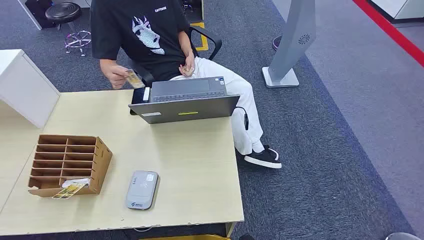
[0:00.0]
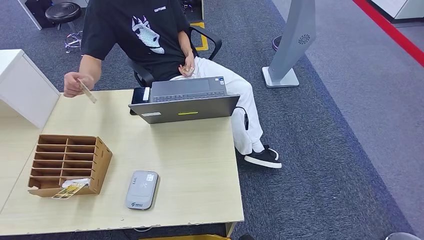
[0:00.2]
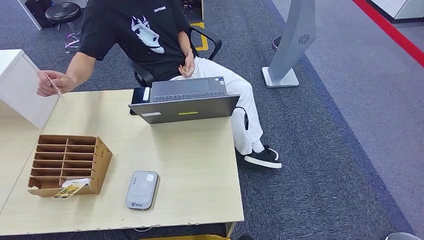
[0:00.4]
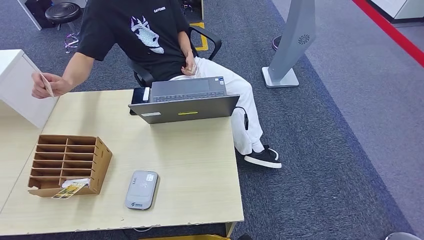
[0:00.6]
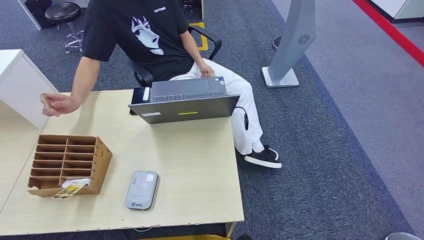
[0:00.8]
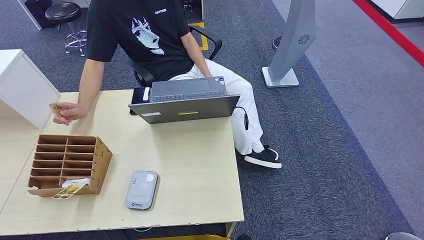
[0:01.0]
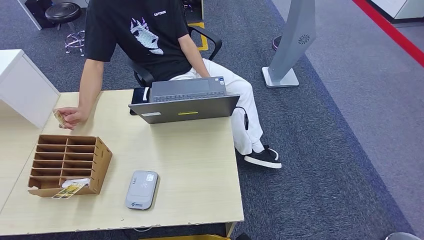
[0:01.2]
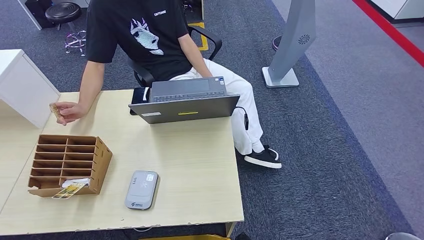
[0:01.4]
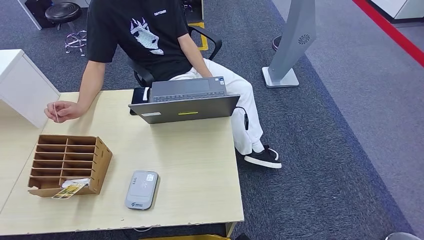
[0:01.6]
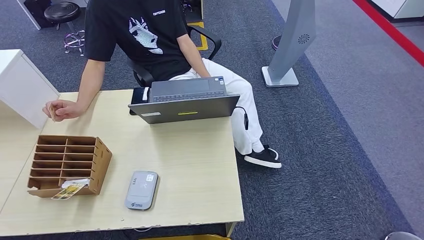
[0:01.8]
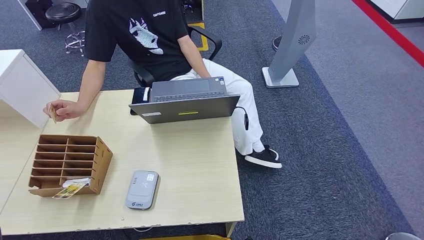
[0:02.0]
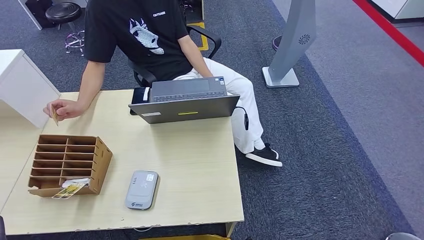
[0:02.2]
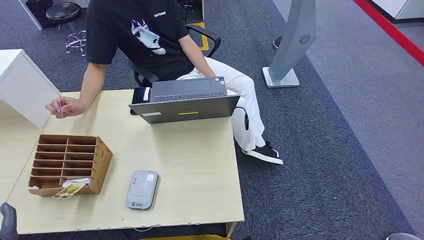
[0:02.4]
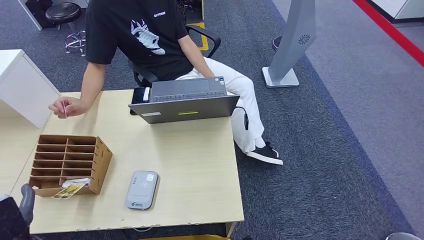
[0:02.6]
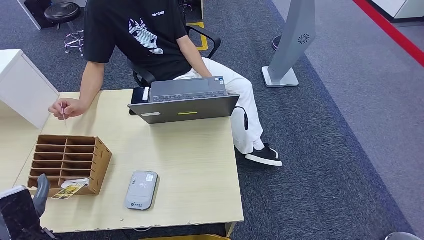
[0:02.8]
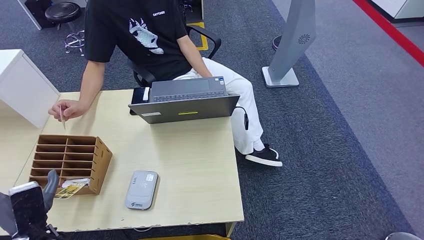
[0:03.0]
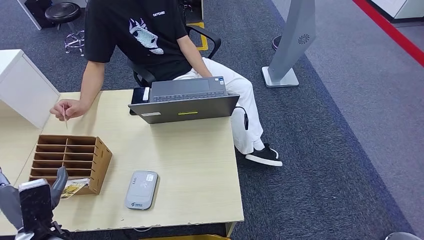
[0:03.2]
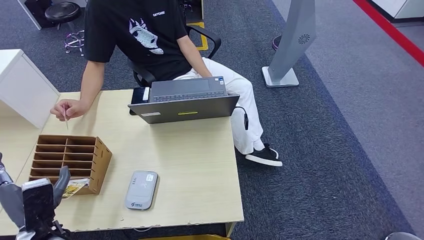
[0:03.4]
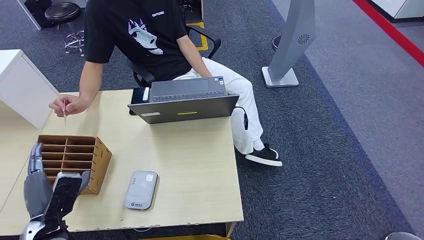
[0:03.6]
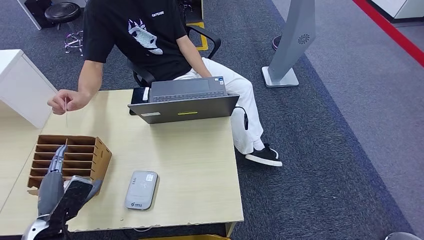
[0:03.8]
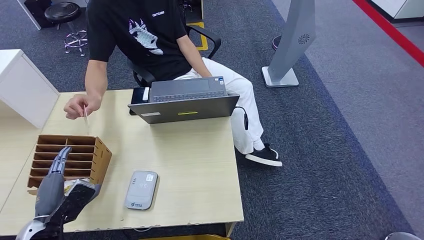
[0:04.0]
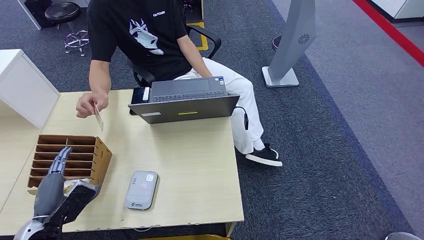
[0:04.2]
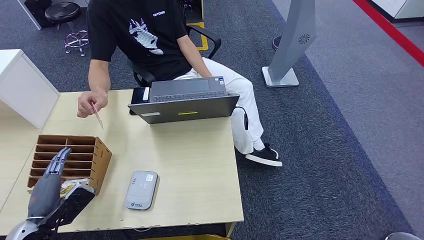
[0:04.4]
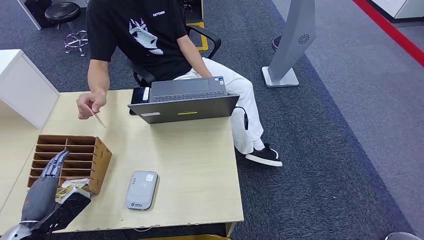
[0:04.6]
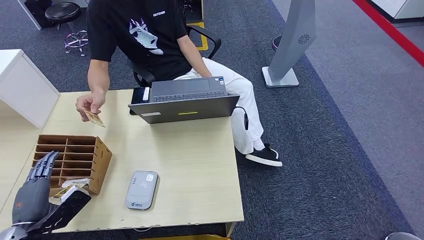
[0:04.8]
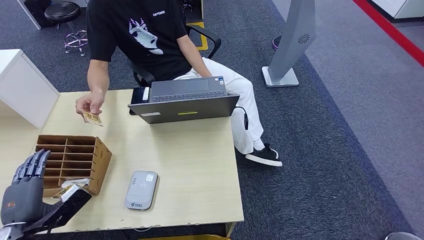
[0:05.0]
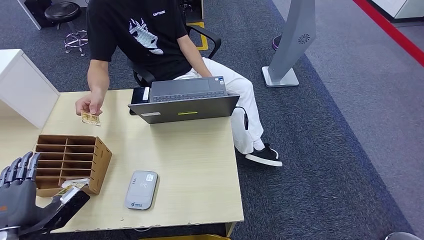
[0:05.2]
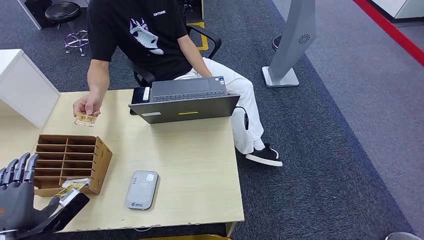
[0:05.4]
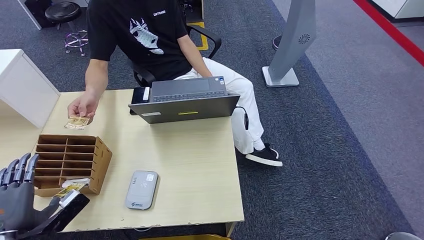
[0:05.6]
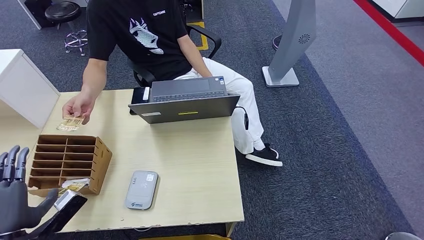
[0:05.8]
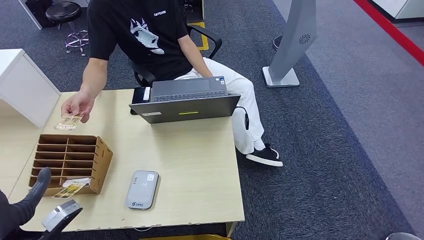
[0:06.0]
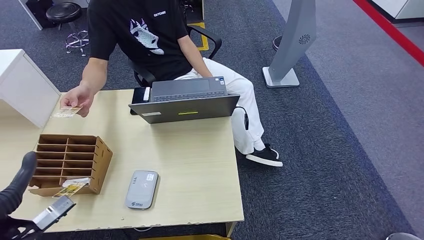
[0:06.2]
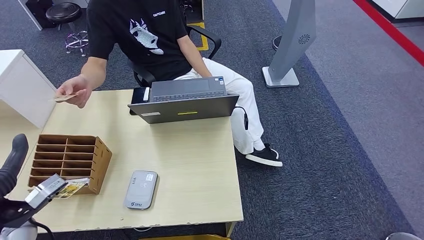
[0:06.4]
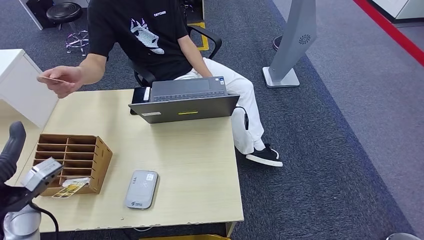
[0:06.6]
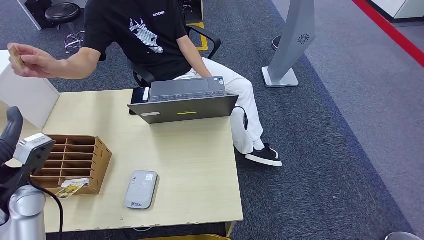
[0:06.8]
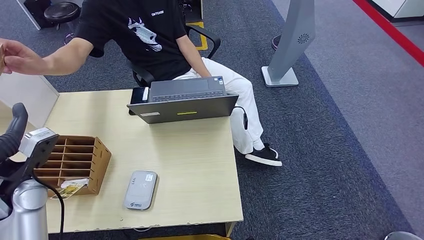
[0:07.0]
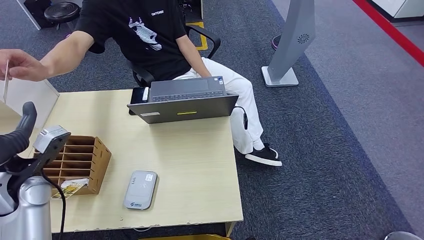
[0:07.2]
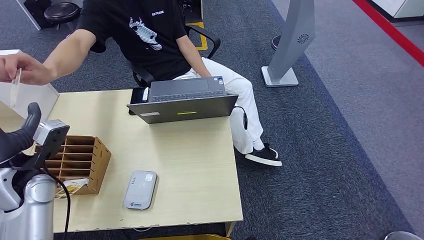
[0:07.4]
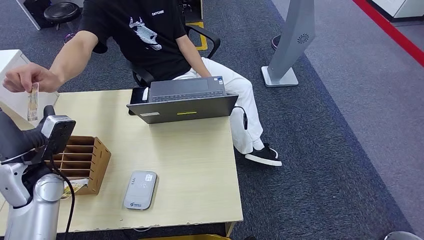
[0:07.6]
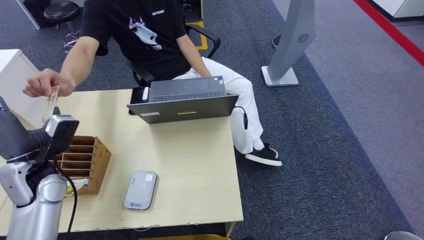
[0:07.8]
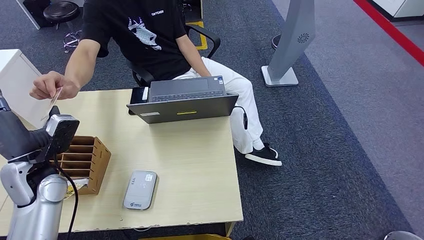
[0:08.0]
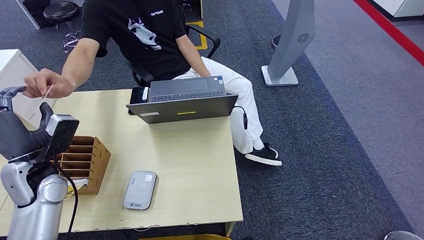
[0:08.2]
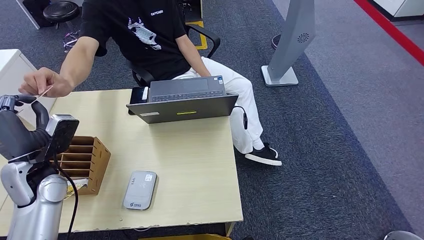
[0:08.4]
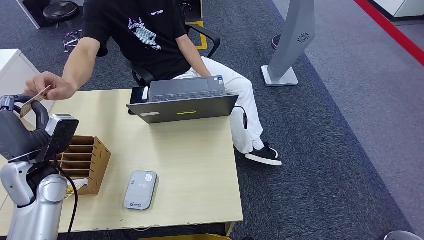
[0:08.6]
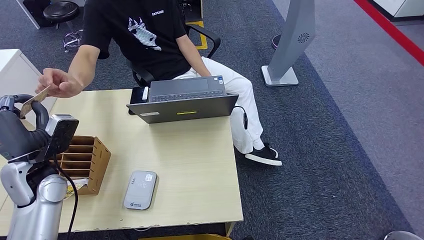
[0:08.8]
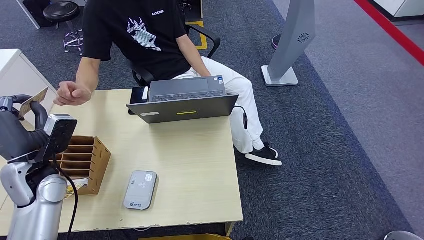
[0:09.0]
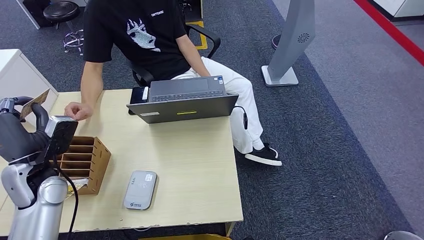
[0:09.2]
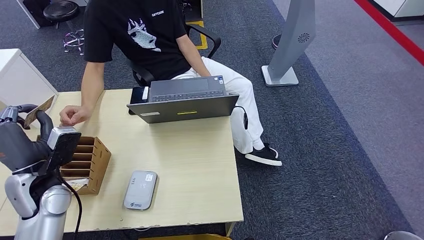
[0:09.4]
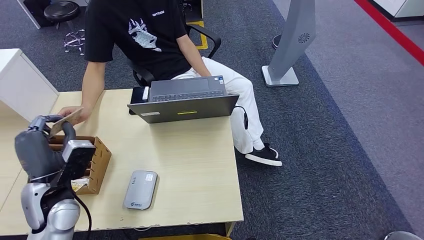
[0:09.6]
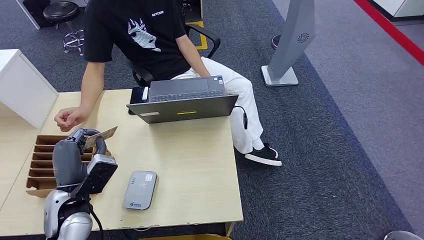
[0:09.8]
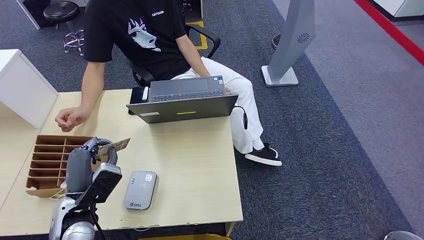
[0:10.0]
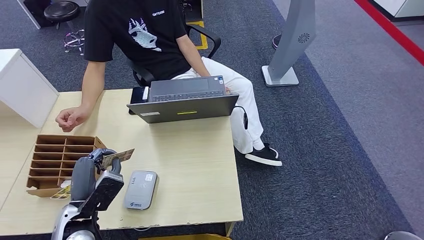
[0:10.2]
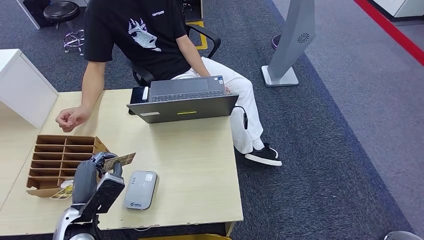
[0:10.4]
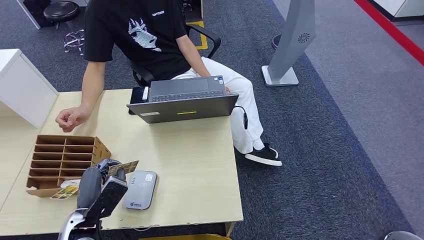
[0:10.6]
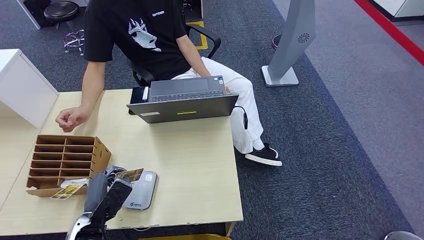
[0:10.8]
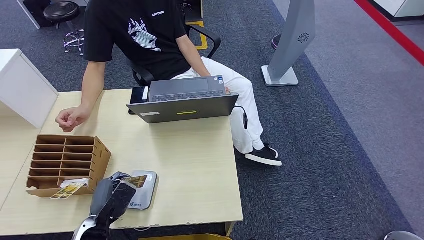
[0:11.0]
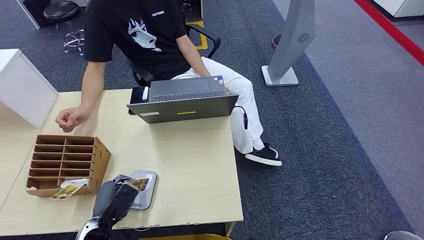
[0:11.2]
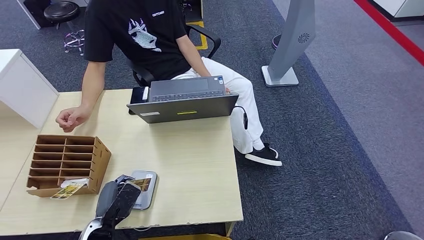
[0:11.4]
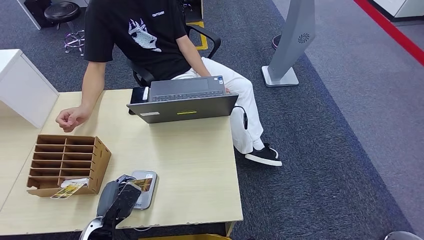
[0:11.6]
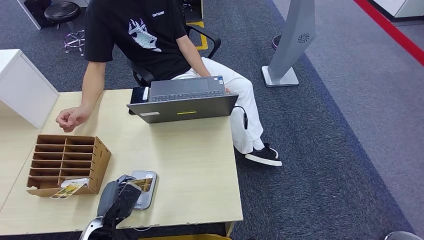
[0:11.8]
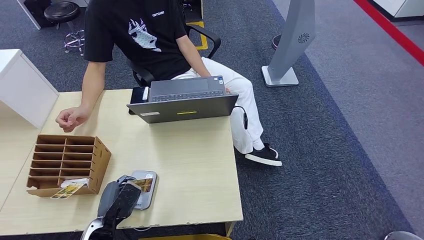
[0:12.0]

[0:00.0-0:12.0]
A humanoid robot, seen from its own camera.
Step, 0.0 to 9.0 s: Take the ID card from the person's hand.
Step, 9.2 to 11.8 s: Place the ID card on the card reader.
1.6 to 3.0 s: The left hand moves upward, forward and to the right, about 15 cm.
4.4 to 6.0 s: The left hand moves upward, approximately 5 cm.
6.0 to 7.6 s: The left hand moves forward, some 15 cm.
7.6 to 9.0 s: The hands make only small movements.
9.0 to 10.4 s: The left hand moves backward, downward and to the right, approximately 15 cm.
10.4 to 12.0 s: The left hand moves downward, some 10 cm.

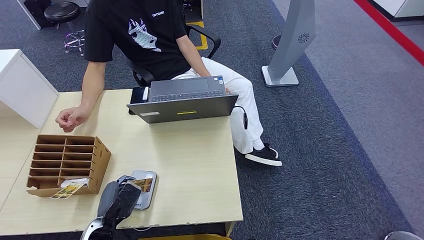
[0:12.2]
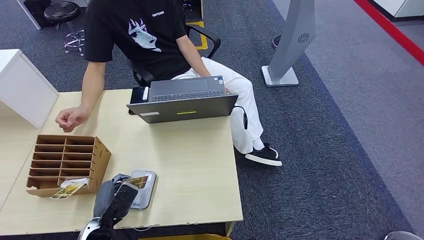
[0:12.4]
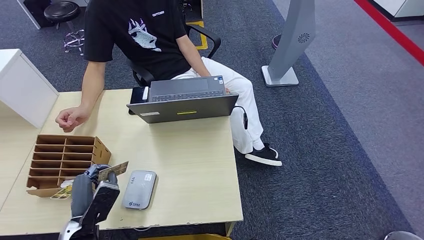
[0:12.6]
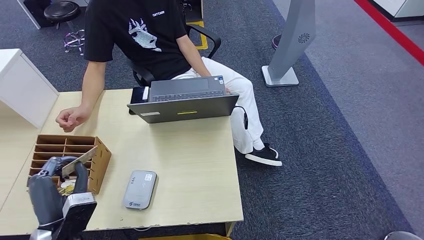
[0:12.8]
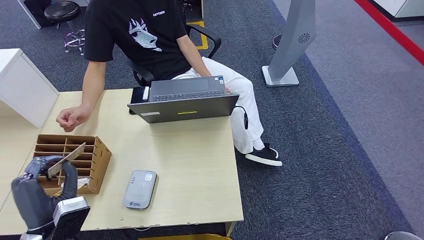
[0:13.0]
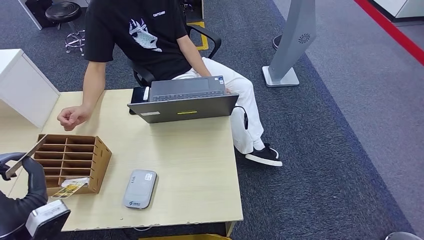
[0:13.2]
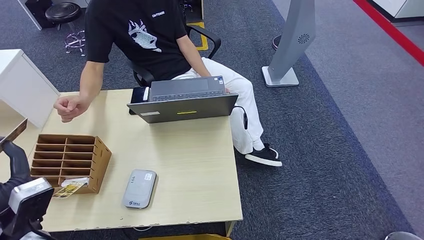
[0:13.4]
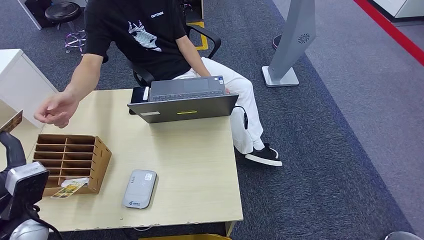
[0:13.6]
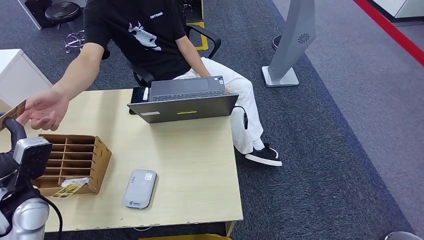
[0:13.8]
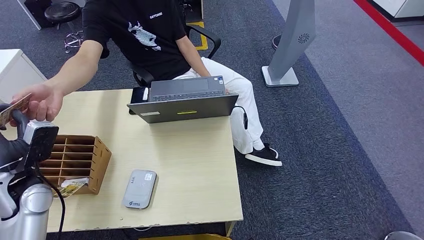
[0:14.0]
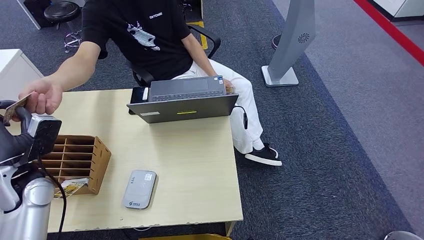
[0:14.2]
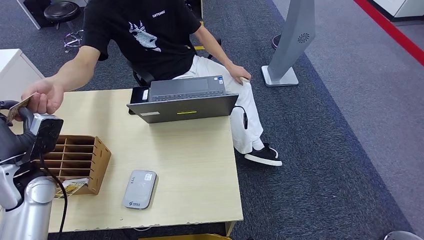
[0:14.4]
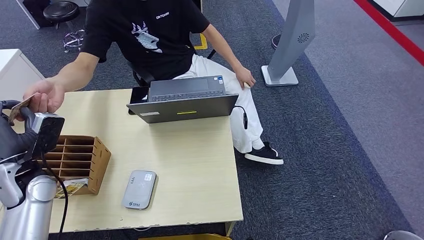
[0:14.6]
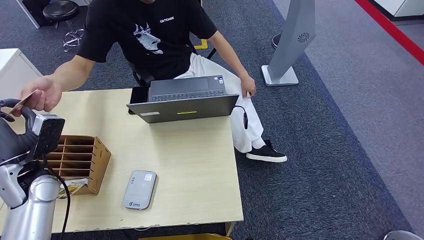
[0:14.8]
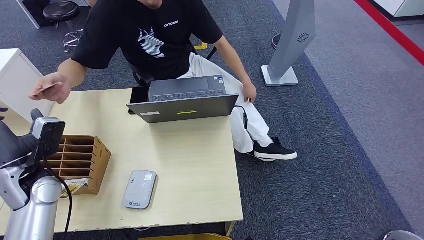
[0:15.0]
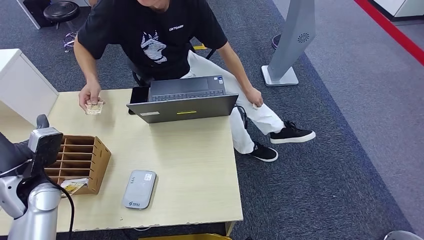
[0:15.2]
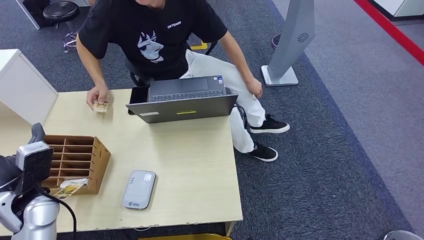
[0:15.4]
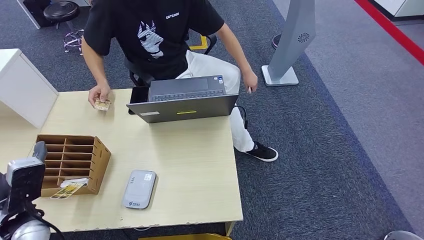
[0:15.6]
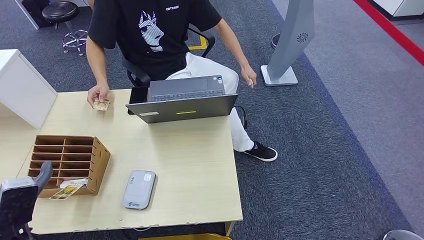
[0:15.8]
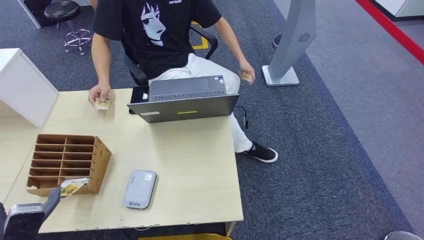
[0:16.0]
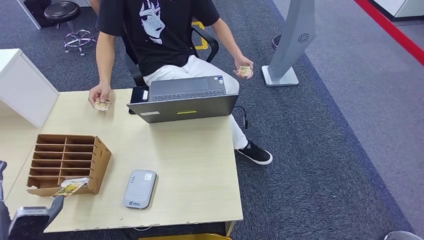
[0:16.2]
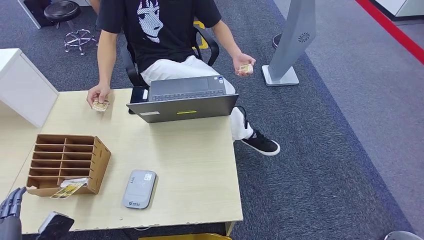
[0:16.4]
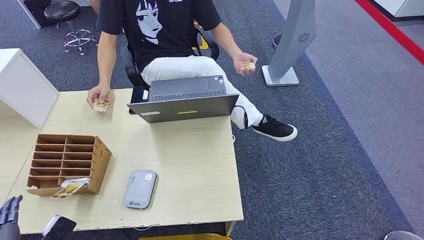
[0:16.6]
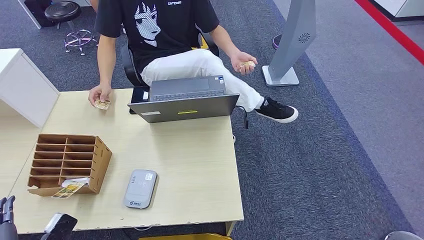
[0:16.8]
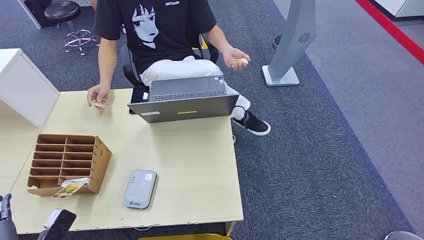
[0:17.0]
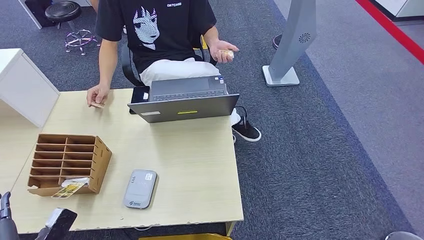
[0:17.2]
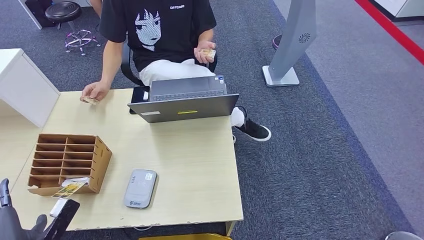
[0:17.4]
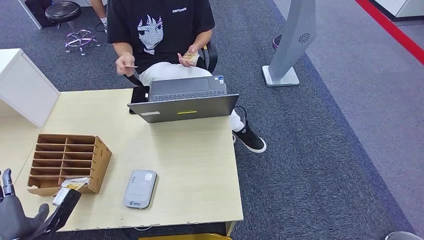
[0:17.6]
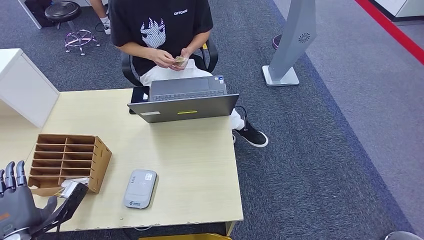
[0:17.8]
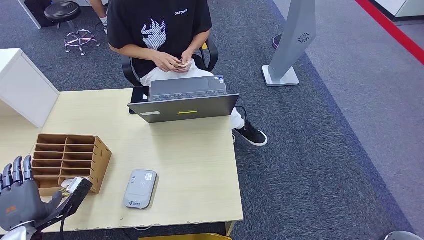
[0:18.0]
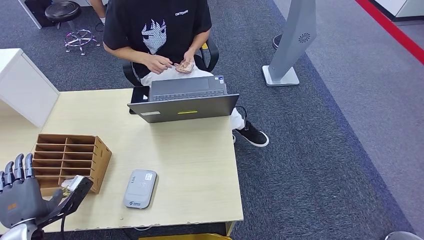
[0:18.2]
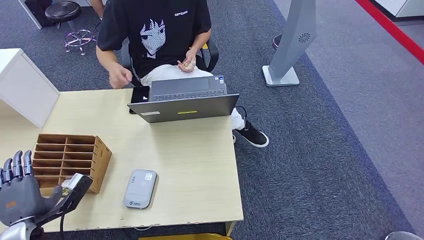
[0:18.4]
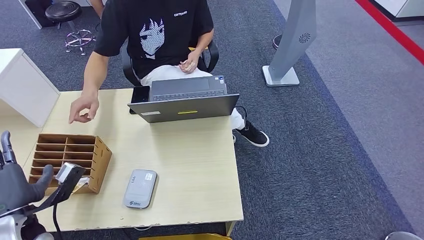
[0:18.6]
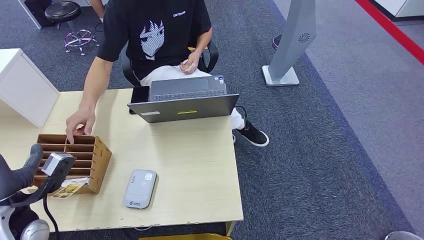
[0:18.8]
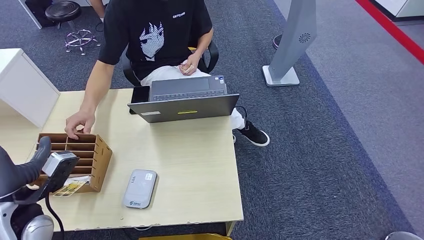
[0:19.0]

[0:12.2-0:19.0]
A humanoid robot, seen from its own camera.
Step, 12.2 to 15.6 s: Hand the ID card to the person.
12.2 to 13.6 s: The left hand goes approximately 20 cm upward and to the left.
13.6 to 15.0 s: The left hand moves forward, some 10 cm.
16.2 to 17.6 s: The left hand shifts by roughly 5 cm.
17.6 to 19.0 s: The left hand goes about 10 cm forward and upward.
